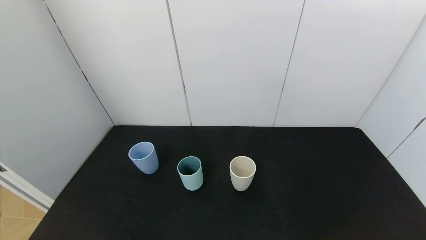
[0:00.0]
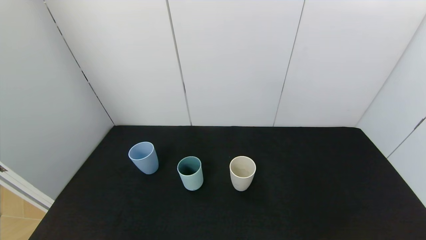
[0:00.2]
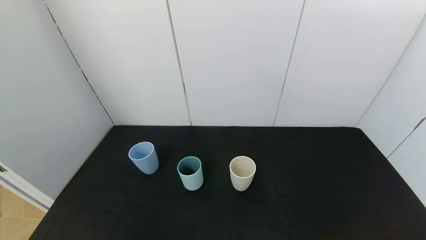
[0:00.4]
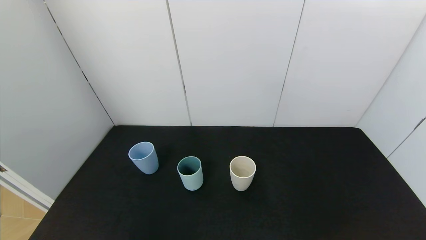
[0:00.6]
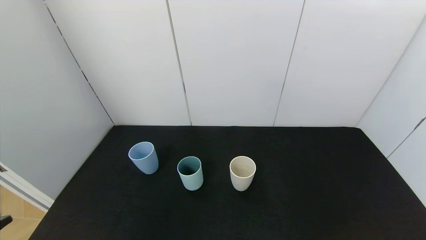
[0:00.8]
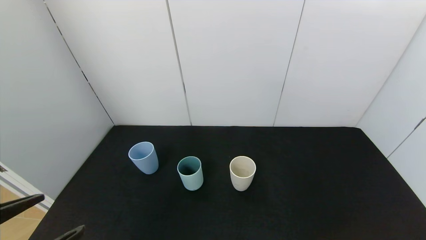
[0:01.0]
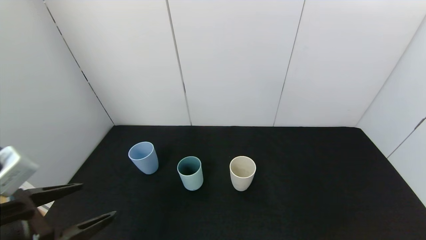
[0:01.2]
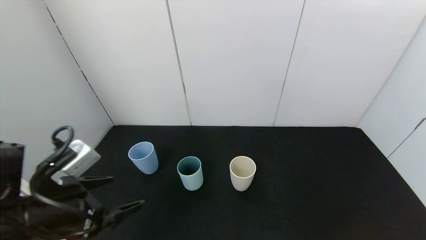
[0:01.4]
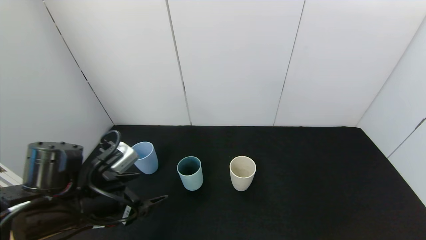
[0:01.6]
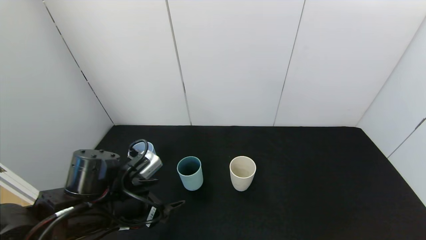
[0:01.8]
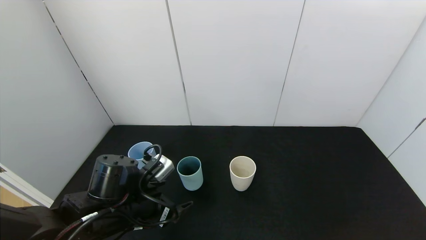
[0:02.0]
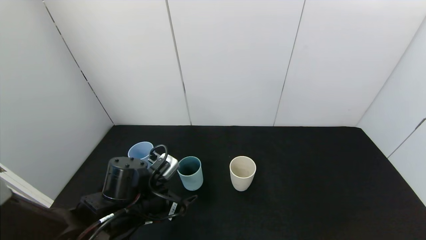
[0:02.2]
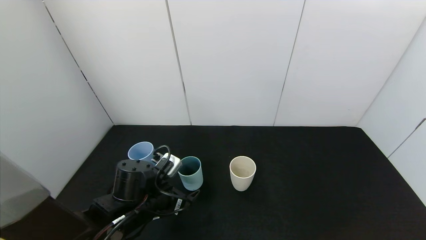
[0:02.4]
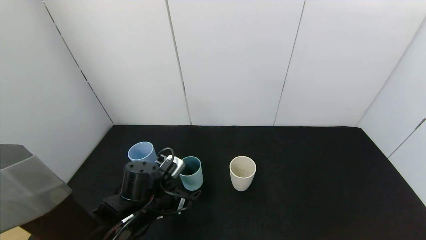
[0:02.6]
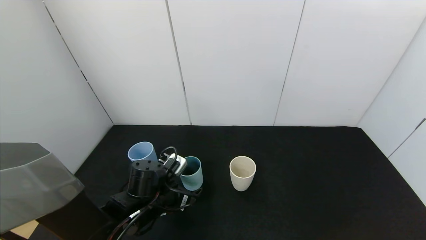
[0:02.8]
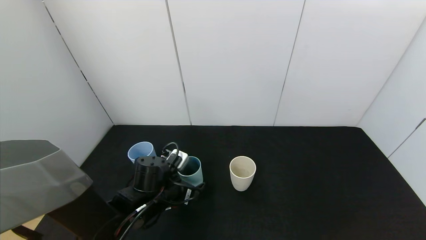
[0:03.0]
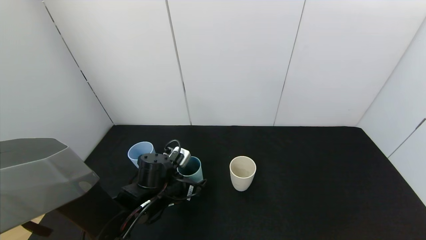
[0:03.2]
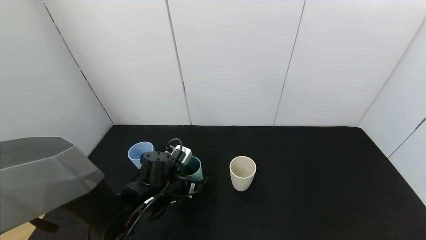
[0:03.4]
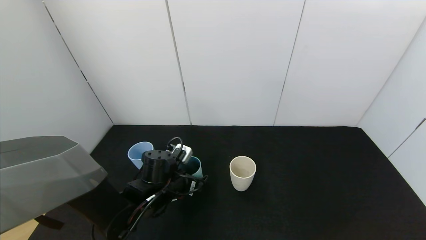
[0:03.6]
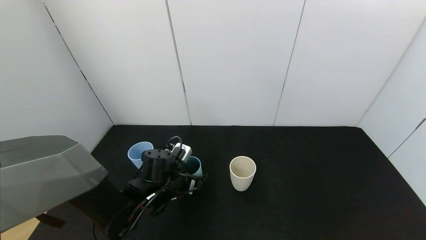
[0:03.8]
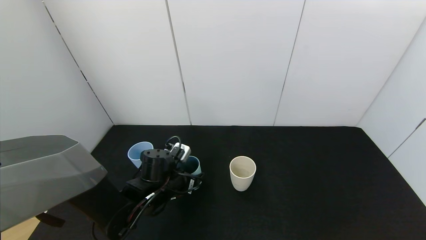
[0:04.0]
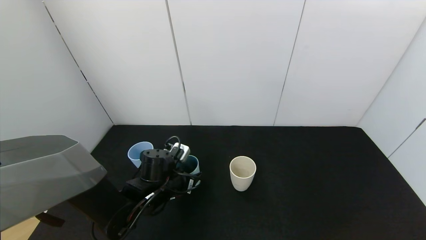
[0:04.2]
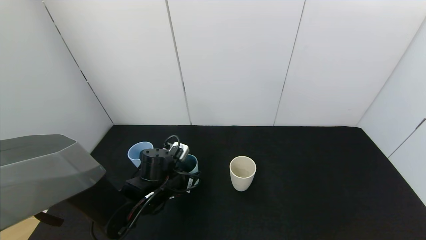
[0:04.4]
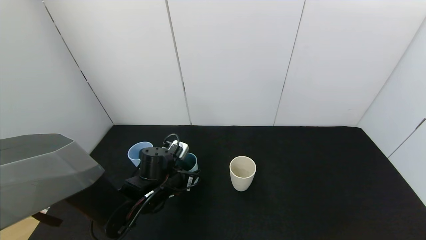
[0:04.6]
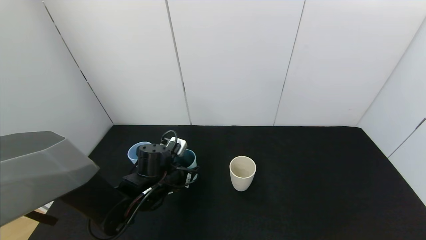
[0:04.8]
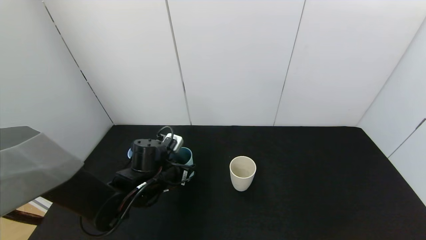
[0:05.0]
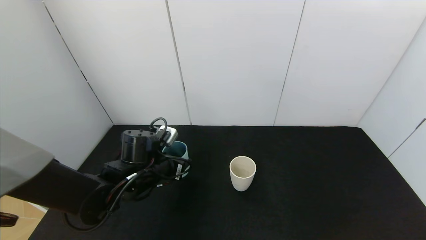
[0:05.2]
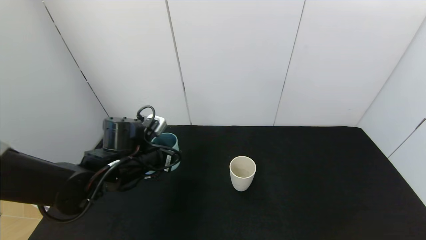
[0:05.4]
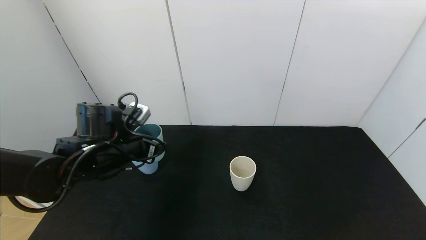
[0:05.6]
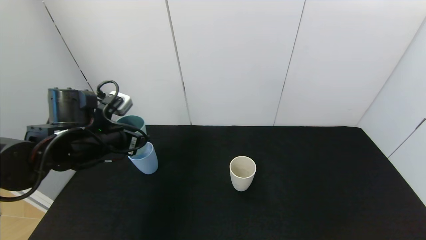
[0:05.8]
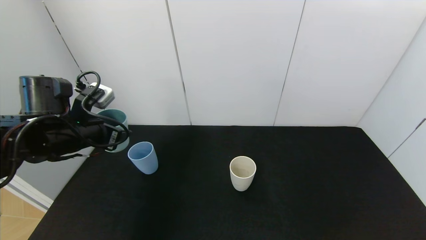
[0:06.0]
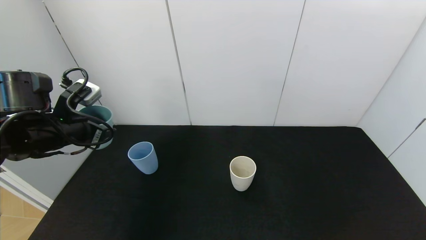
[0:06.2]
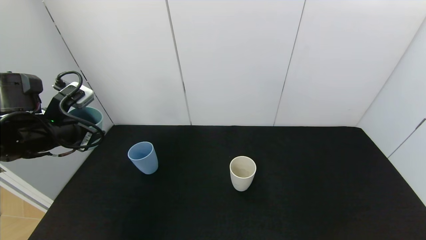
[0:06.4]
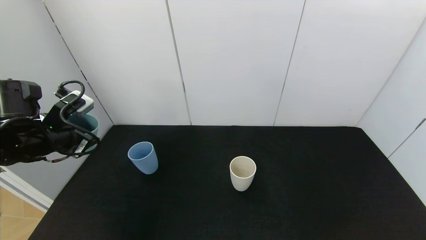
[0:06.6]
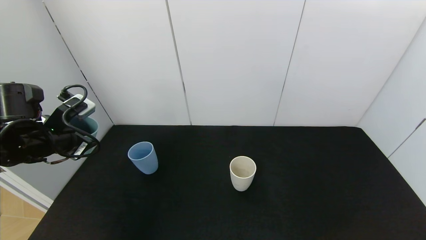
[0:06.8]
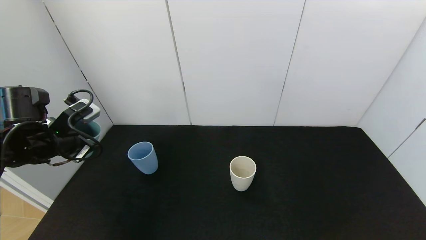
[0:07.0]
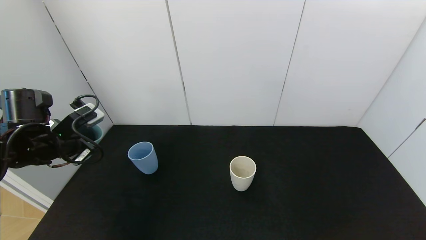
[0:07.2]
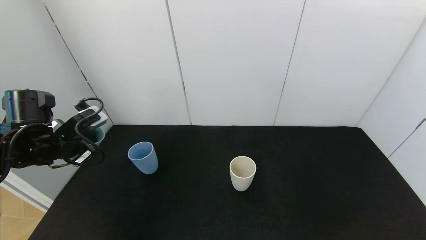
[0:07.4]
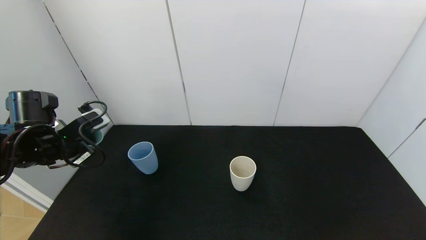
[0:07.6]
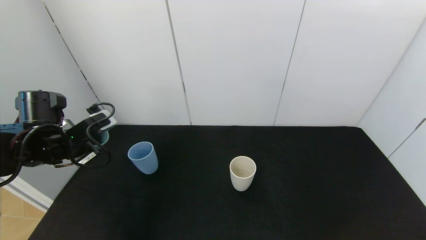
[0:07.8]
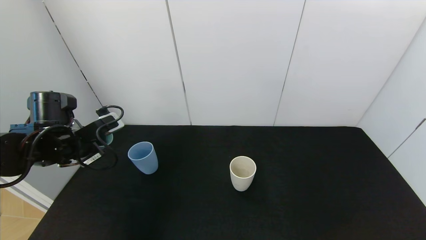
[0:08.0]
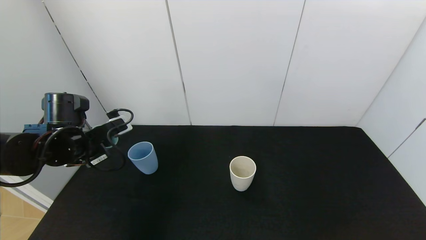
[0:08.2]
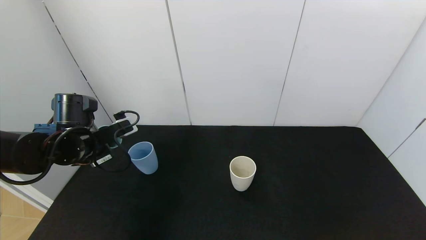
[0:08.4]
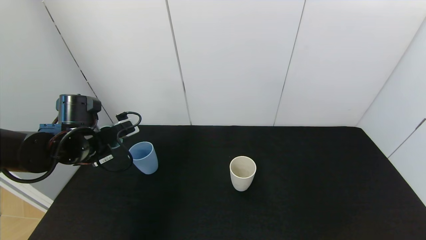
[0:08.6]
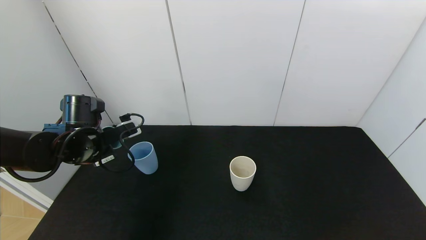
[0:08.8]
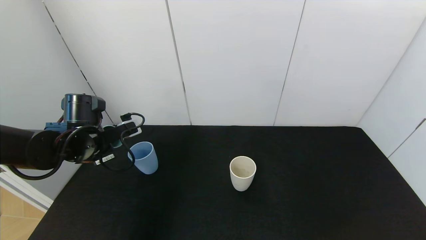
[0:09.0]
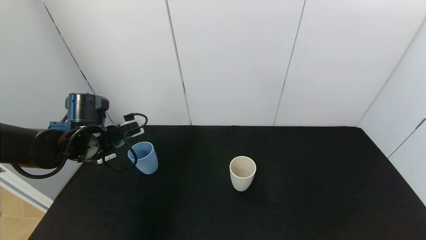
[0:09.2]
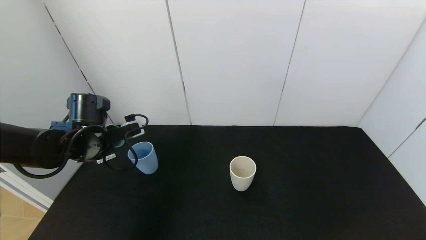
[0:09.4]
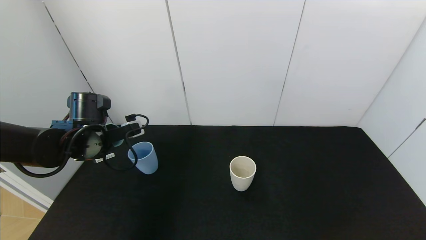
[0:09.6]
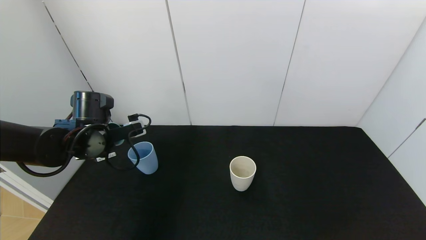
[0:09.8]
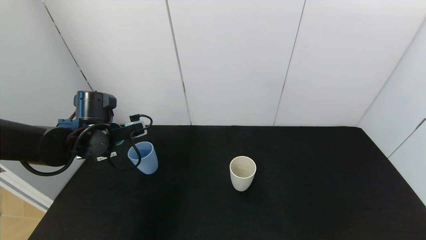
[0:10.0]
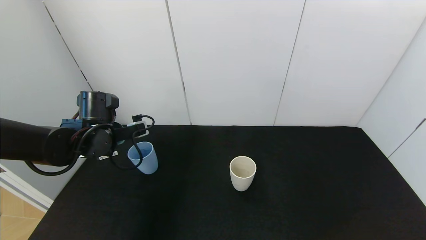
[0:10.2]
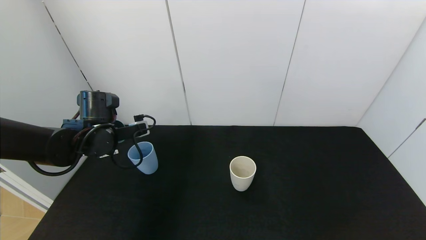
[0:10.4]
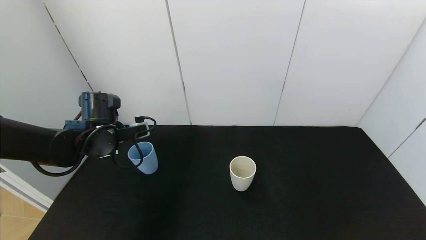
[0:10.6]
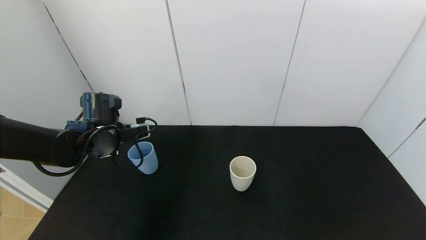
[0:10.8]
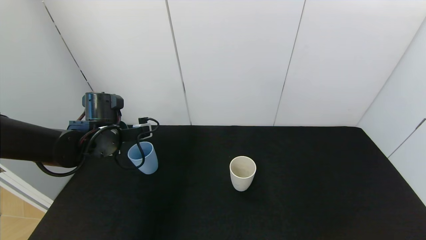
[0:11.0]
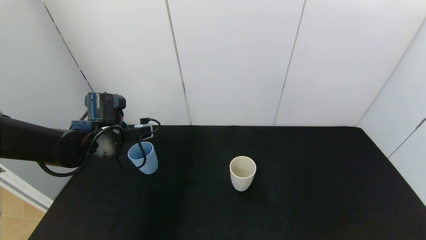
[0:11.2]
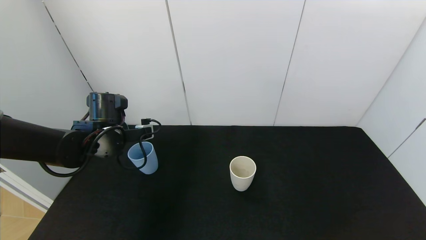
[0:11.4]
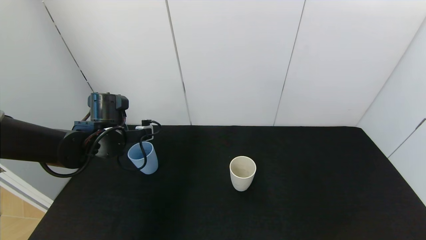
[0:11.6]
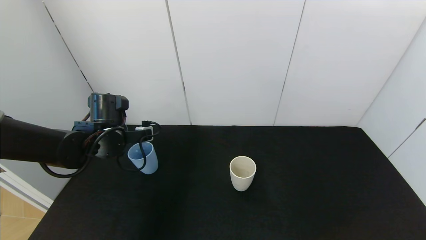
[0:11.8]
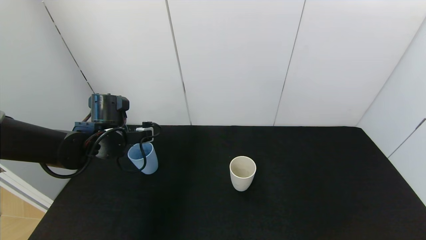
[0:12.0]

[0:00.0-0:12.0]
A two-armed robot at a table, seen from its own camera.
Task of the whole recording: use the gripper to pour the water into the other two cups on black table.
Step, 0:00.0 to 0:04.4: Grasp the green cup with the left gripper.
0:00.0 to 0:01.6: The left gripper is displaced forward by roughly 25 cm.
0:01.6 to 0:03.0: The left gripper travels downward, forward and to the right by approximately 15 cm.
0:03.0 to 0:04.4: The left gripper closes its fingers.
0:04.4 to 0:06.0: The left gripper moves upward and to the left, some 20 cm.
0:06.0 to 0:07.6: The left gripper goes some 5 cm to the left.
0:07.6 to 0:09.0: The left gripper ends up about 5 cm from where it was.
0:09.0 to 0:10.4: There are only small adjustments of the grippers.
0:10.4 to 0:12.0: There are only small adjustments of the grippers.

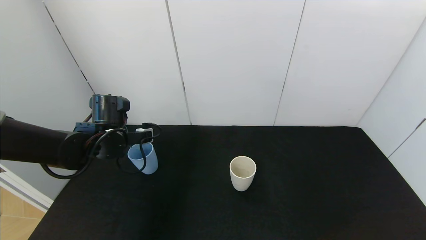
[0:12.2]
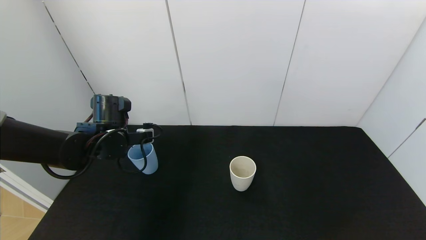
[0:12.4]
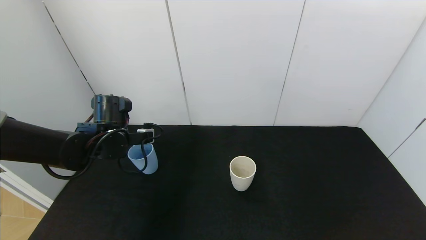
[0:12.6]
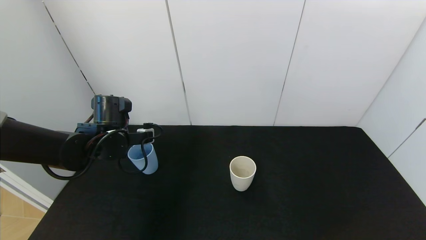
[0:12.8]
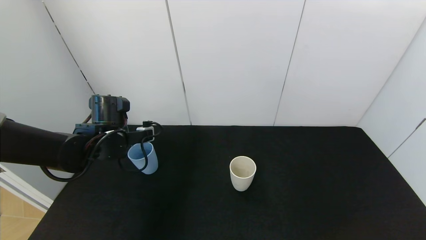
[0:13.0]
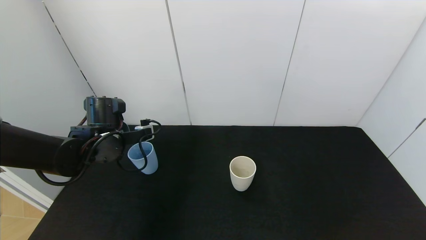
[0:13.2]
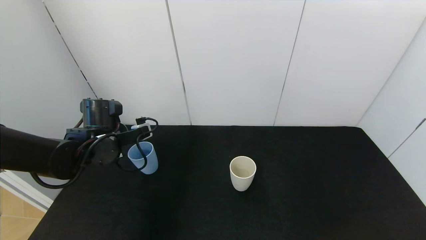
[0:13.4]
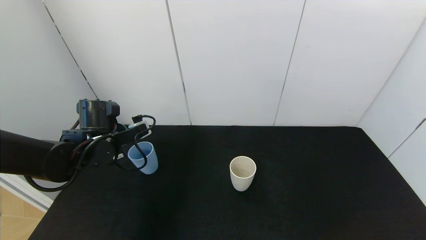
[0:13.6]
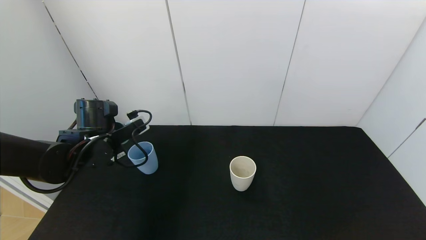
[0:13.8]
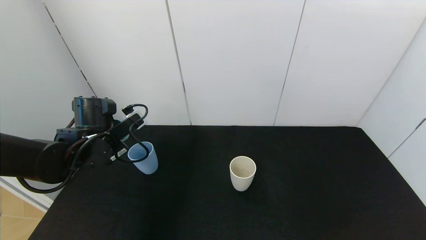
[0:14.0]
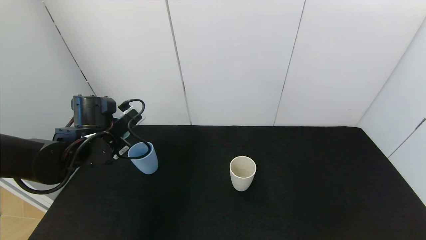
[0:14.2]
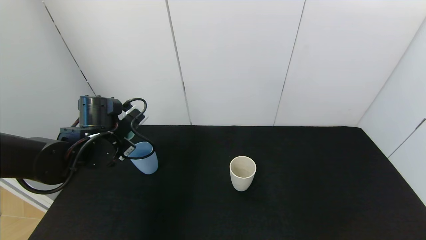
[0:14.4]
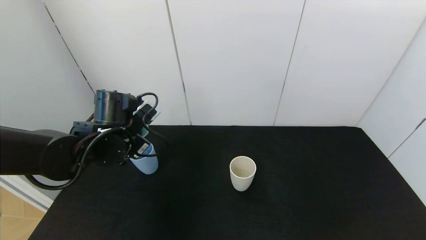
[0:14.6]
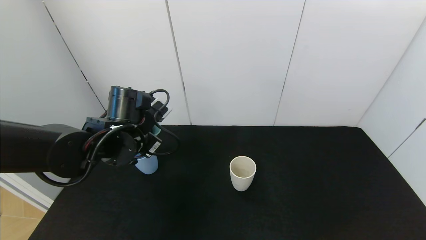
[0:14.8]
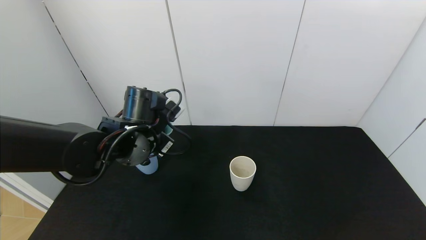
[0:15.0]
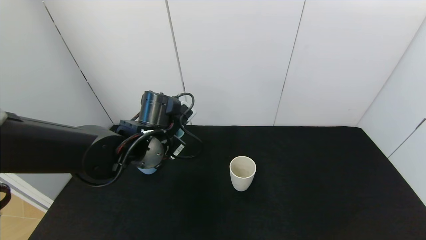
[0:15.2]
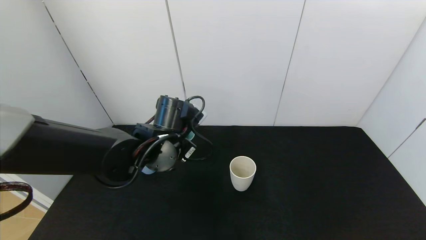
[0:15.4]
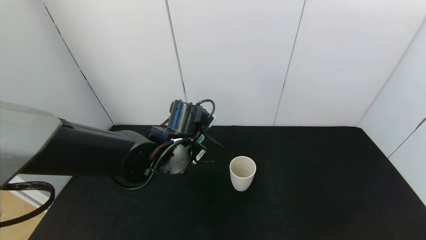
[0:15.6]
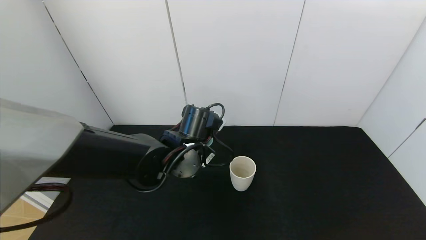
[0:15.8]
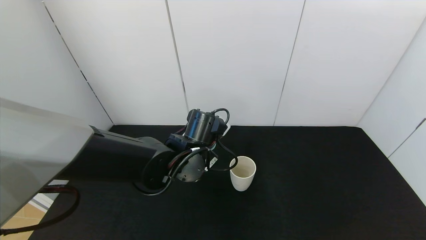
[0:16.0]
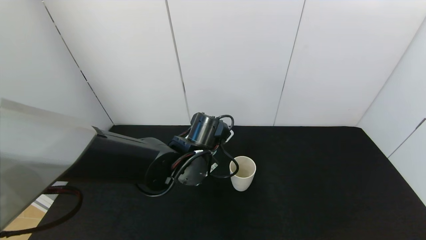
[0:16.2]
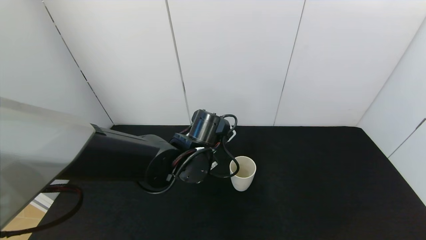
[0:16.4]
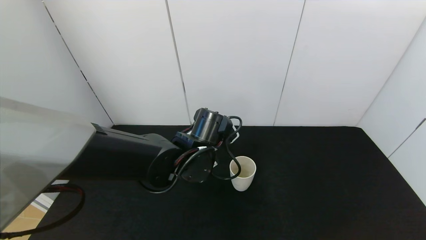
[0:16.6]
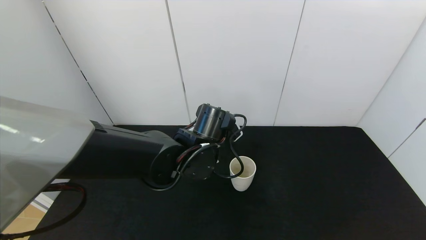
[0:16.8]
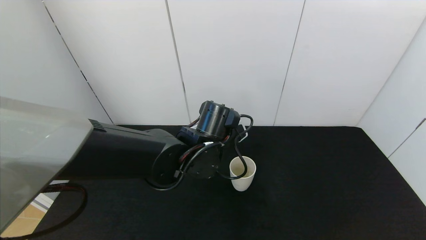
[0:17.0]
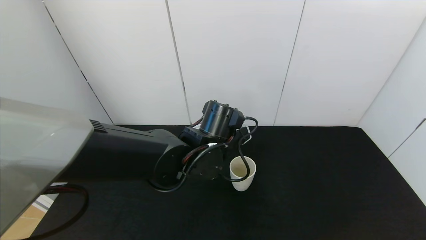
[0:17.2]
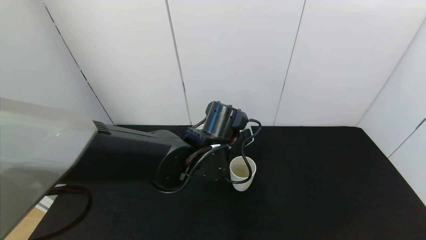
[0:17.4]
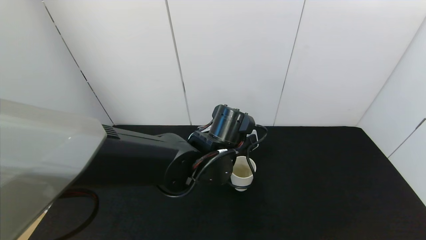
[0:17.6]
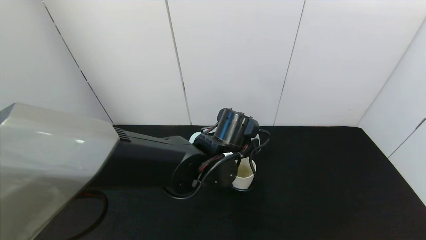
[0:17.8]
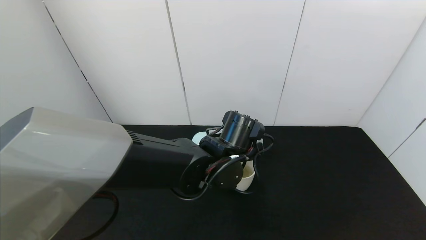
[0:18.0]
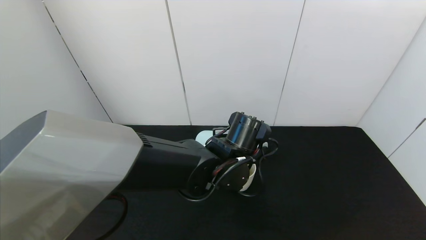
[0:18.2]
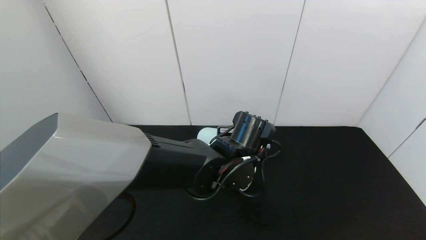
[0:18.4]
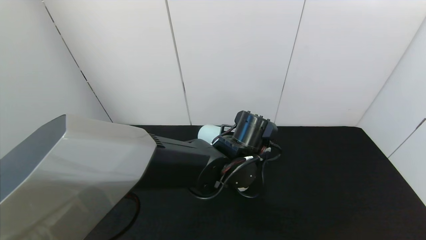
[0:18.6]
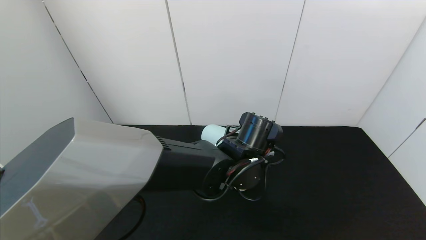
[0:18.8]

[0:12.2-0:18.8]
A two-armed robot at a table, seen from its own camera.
Task of the whole recording: use the gripper to pour the water into the other two cups on black table.
0:13.8 to 0:15.4: The left gripper goes approximately 15 cm to the right.
0:15.4 to 0:17.2: The left gripper shifts some 10 cm to the right.
0:17.2 to 0:18.8: The left gripper travels to the right by roughly 5 cm.
